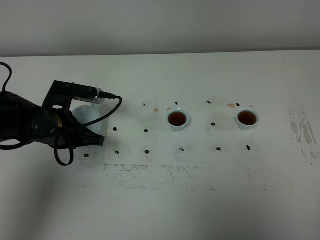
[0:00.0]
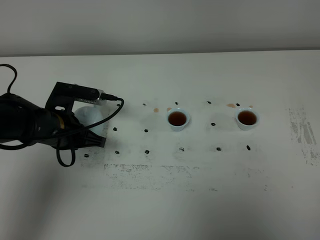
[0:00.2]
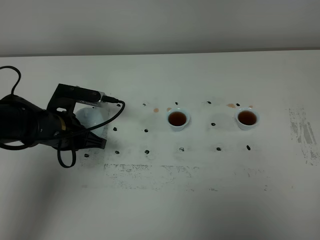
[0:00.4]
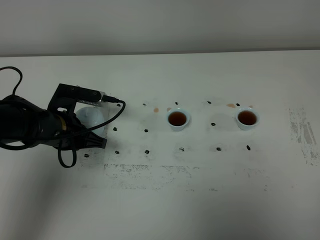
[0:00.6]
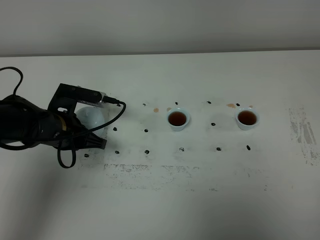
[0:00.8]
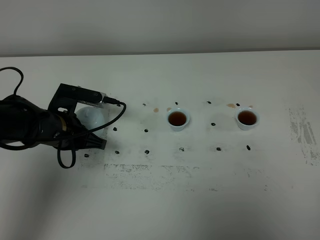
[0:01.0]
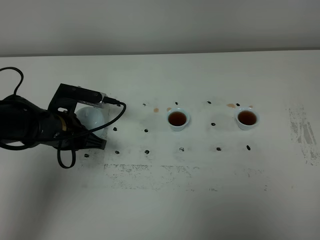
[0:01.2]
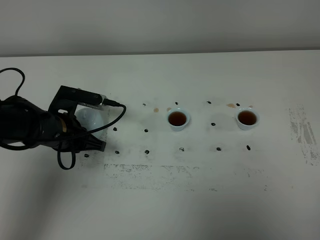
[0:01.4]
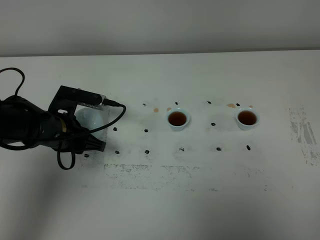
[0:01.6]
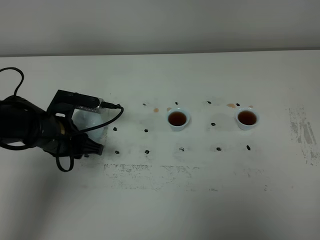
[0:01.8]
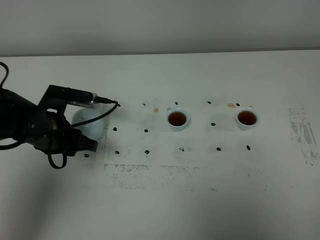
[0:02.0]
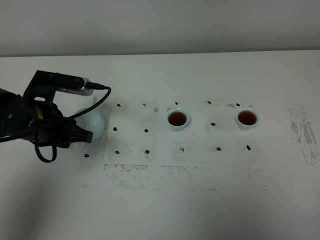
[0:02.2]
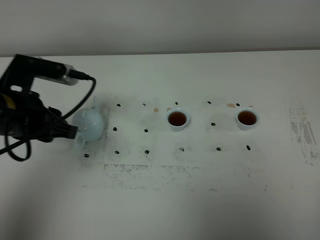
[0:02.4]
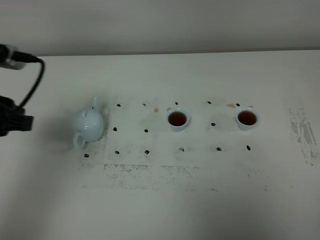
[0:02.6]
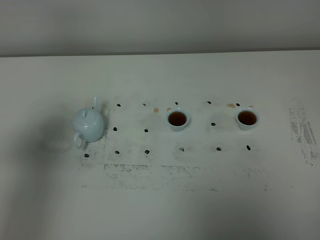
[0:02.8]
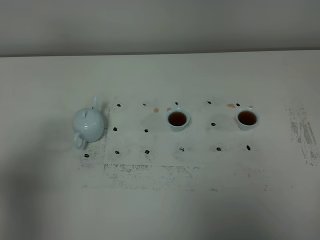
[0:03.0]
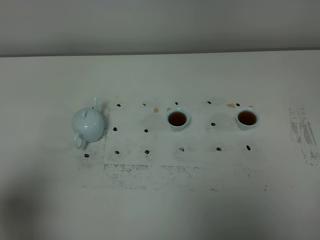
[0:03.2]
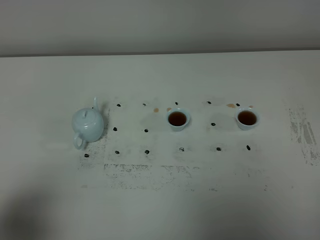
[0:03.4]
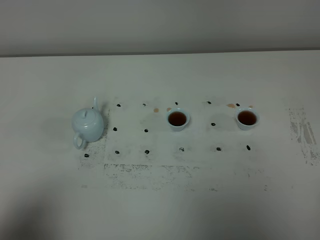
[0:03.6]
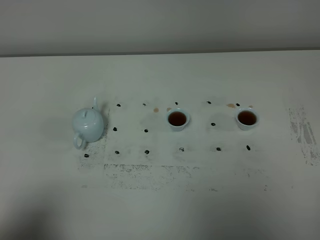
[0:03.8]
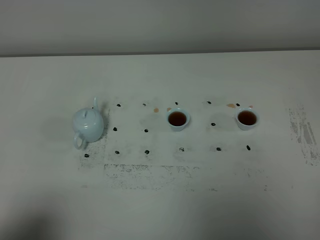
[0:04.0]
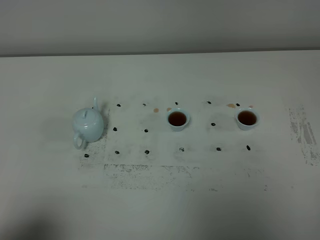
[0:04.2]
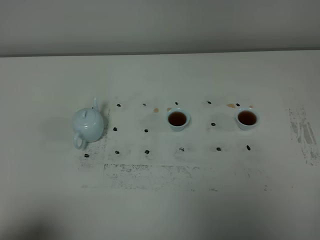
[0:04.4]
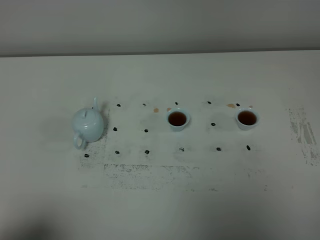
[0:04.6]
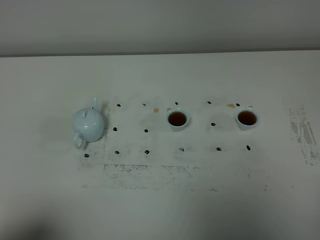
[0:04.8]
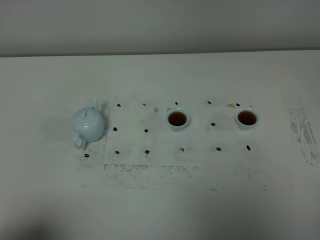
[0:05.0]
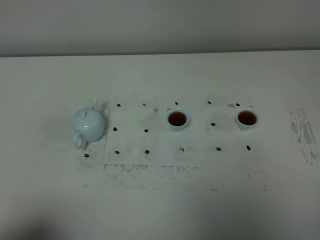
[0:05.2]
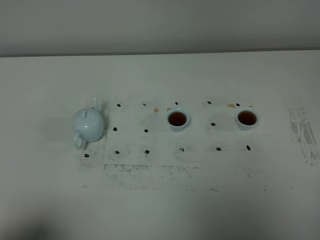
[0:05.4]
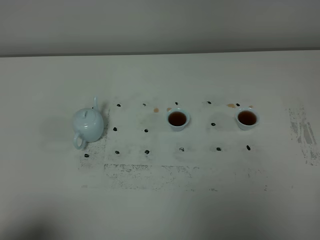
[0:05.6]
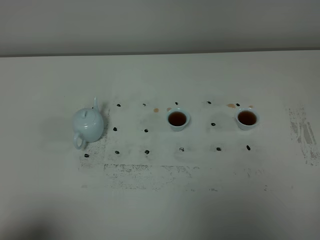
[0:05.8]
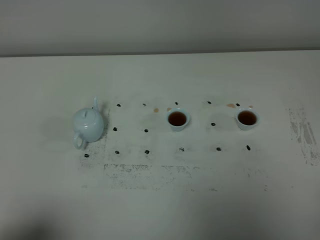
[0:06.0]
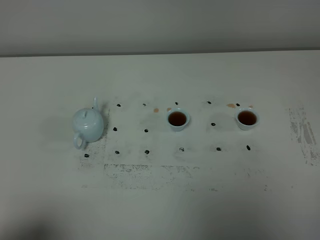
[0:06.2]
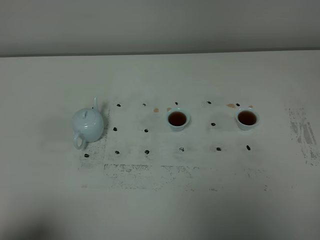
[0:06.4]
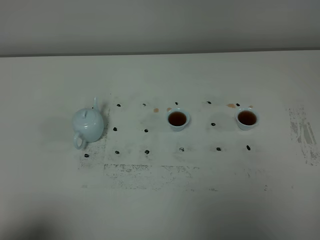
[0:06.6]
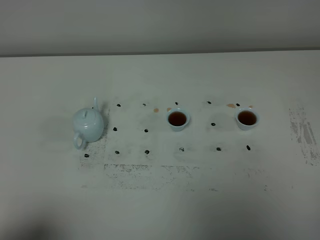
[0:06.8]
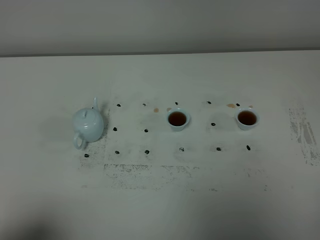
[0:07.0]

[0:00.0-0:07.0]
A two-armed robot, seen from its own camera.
Task of the whole recording: grasp the blue porcelain teapot and pour the tea into the two blue porcelain teacups one by one, put the blue porcelain teapot back in its original place.
0:00.0 to 0:01.4: The grippers make only small movements.
0:01.4 to 0:02.8: The left gripper heads upward, backward and to the left, covering some 30 cm, and opens up.
0:02.8 to 0:04.2: The left gripper moves backward and downward, roughly 20 cm.
0:04.2 to 0:07.0: Both grippers stay about where they are.

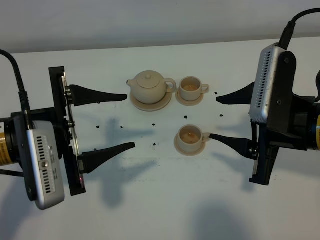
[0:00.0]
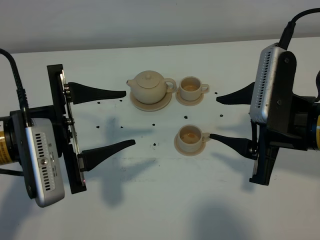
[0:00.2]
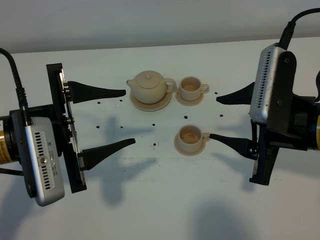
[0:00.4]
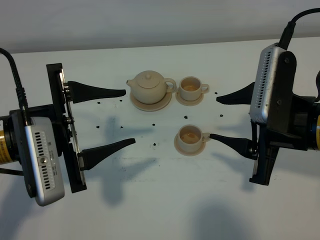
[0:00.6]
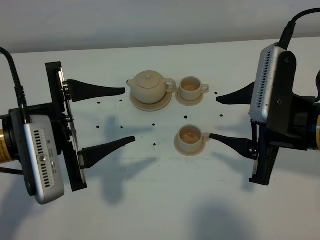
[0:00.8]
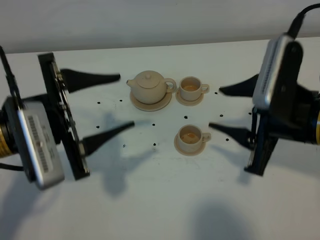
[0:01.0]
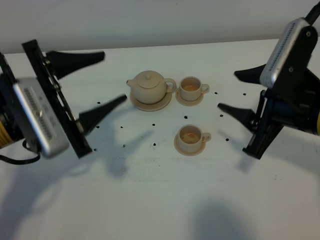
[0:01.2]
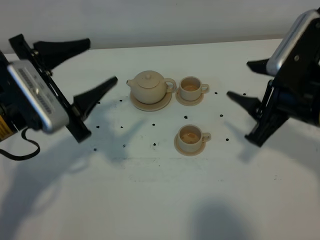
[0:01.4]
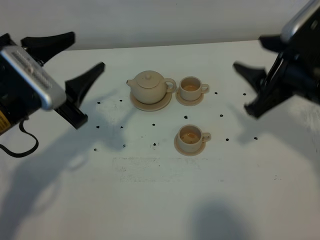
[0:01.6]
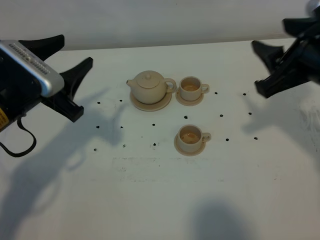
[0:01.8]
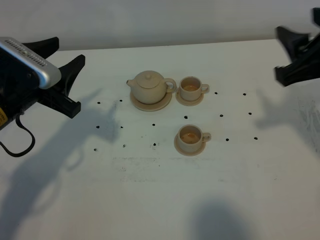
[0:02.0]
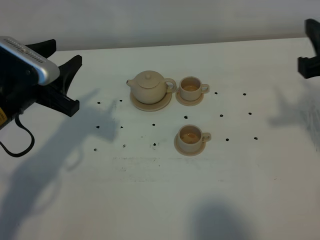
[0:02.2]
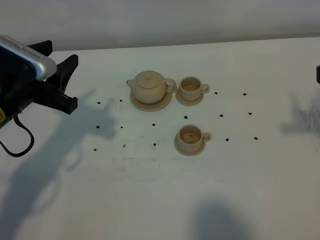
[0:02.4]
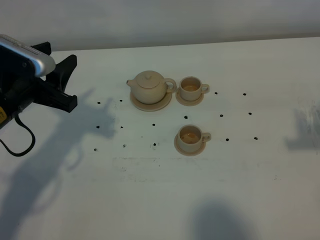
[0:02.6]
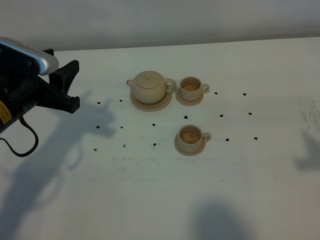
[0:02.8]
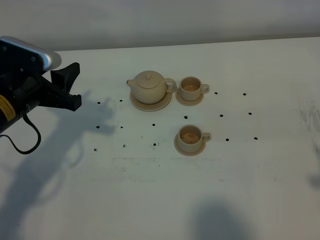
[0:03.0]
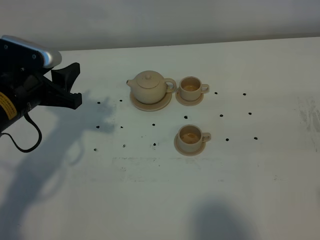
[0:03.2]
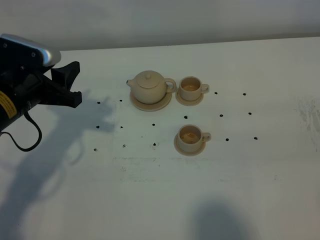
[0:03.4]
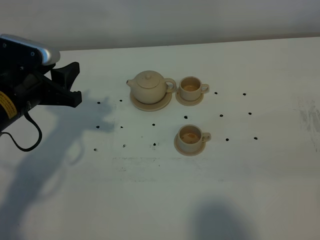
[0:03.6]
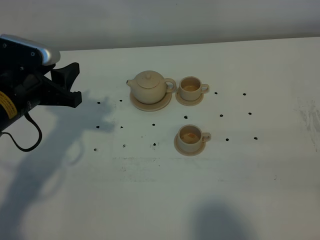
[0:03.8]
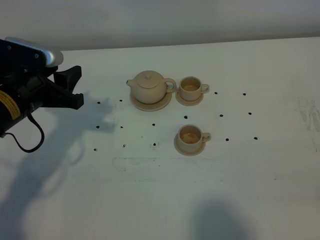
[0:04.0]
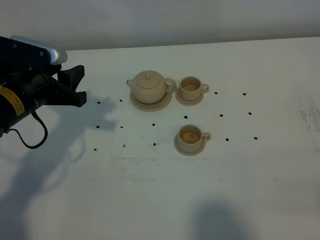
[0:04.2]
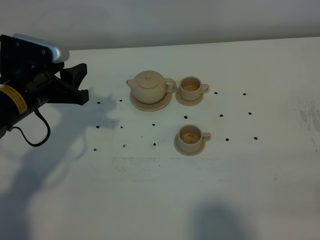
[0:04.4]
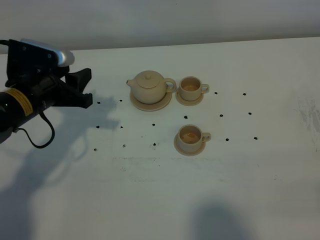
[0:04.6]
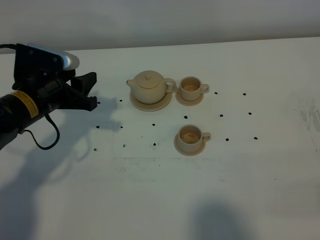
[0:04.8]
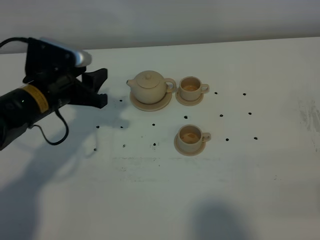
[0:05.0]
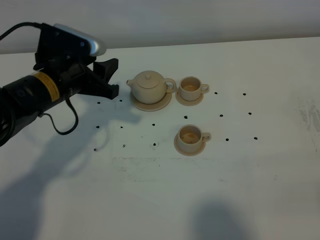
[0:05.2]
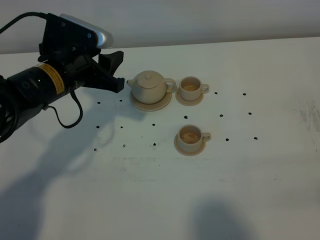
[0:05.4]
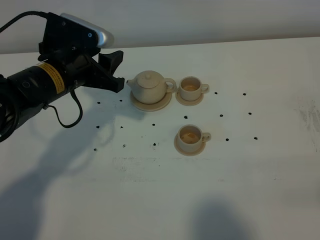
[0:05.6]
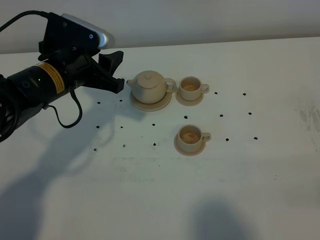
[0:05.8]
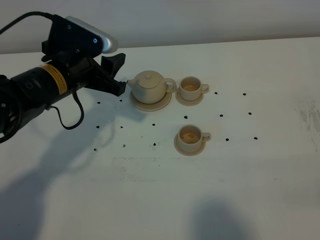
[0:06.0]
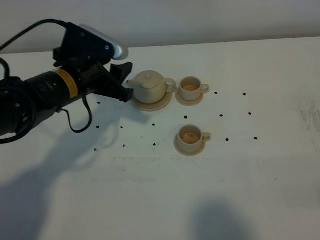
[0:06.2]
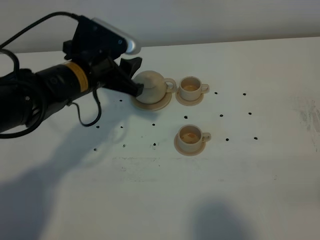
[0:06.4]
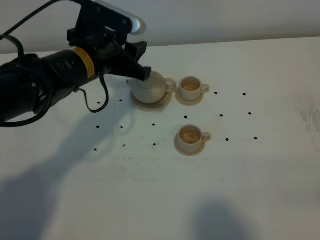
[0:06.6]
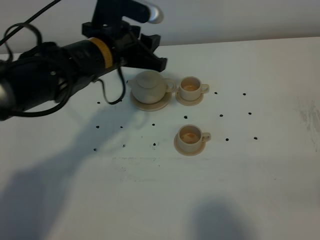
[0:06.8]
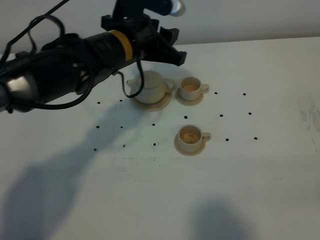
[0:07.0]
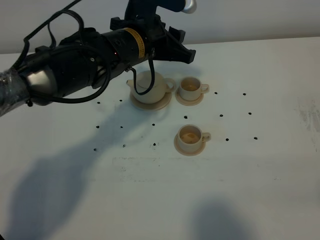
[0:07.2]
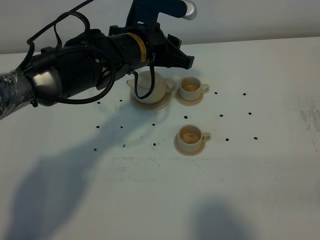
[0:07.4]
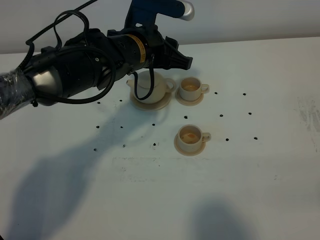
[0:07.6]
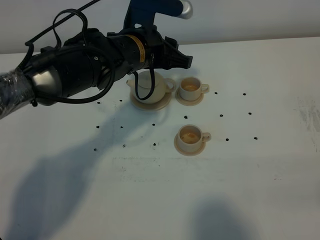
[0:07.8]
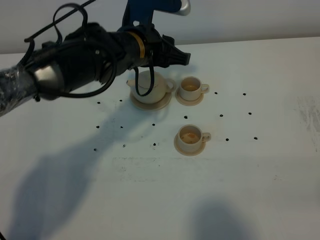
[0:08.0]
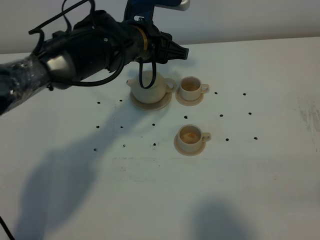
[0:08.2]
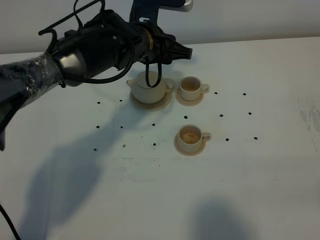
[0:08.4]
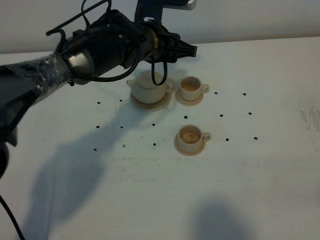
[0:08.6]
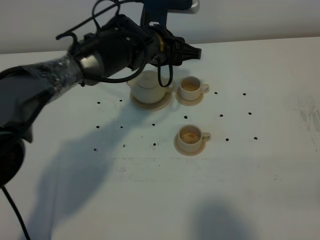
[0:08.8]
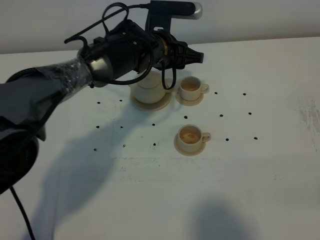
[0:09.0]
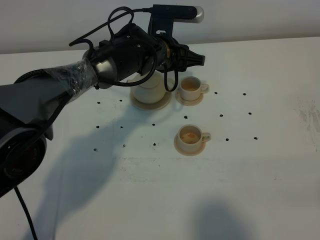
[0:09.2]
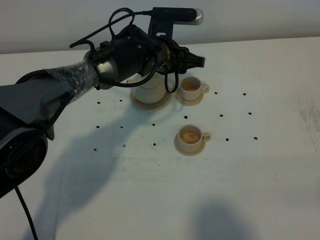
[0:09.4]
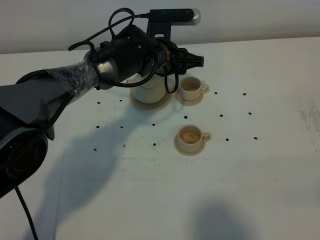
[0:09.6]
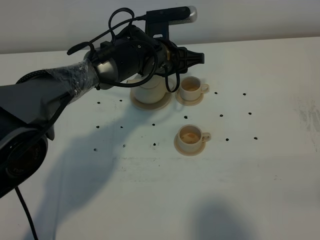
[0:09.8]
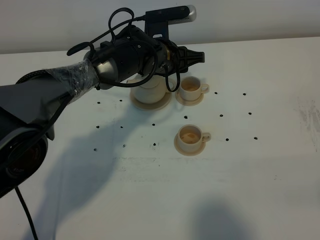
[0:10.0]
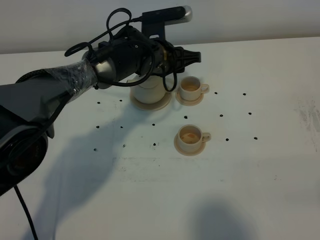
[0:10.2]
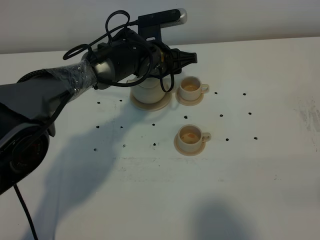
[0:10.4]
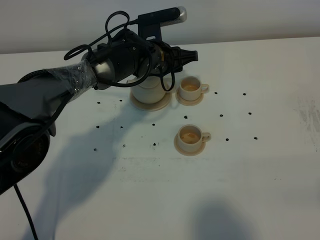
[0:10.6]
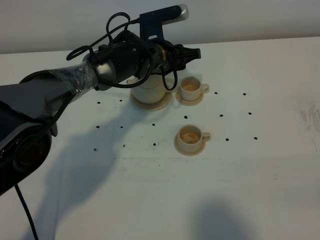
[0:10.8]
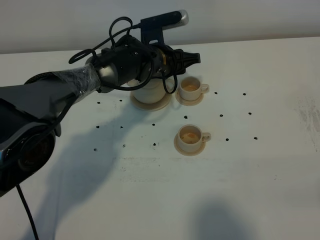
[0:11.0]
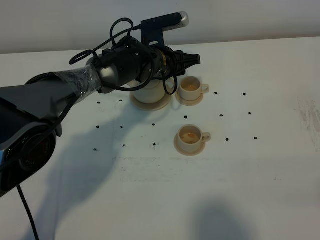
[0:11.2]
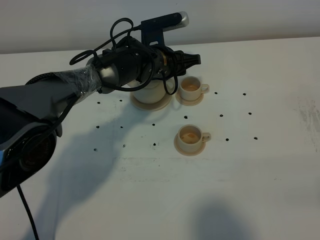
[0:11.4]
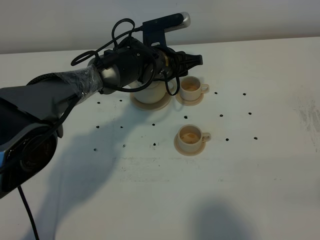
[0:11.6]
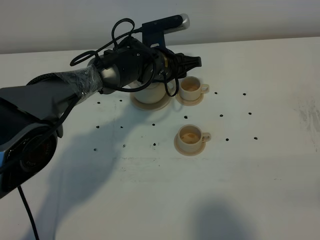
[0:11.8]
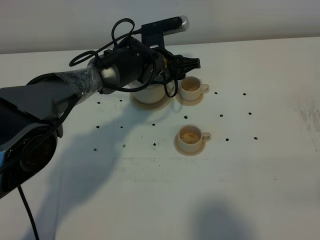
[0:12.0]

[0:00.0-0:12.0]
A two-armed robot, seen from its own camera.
Task of the whole recording: grasp the brown teapot and pour the tea into the two brown teacups one by one, put the brown teapot back in its original place.
0:00.0 to 0:01.6: The left gripper moves roughly 5 cm. The right gripper shifts by some 5 cm.
0:01.6 to 0:03.0: The left gripper moves about 5 cm, while the right gripper heads backward and to the right, covering approximately 15 cm.
0:04.4 to 0:06.0: The left gripper is displaced to the right by some 5 cm.
0:06.0 to 0:07.6: The left gripper travels to the right by approximately 10 cm.
0:07.6 to 0:09.0: The left gripper heads forward and downward, covering about 10 cm.
0:09.0 to 0:12.0: There are only small adjustments of the grippers.

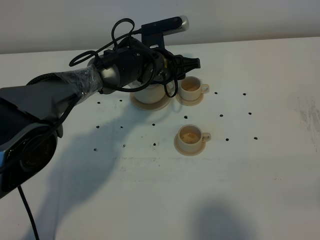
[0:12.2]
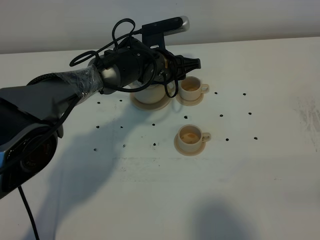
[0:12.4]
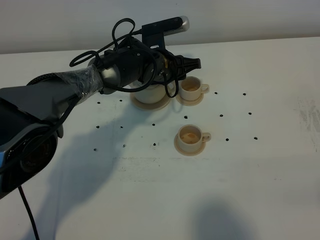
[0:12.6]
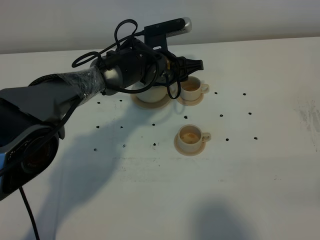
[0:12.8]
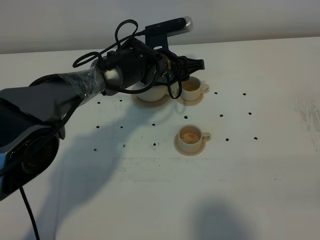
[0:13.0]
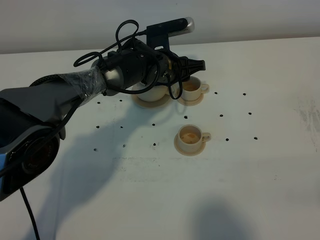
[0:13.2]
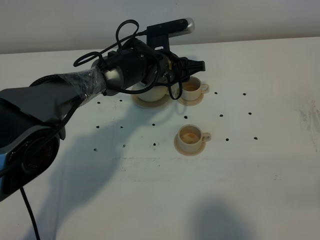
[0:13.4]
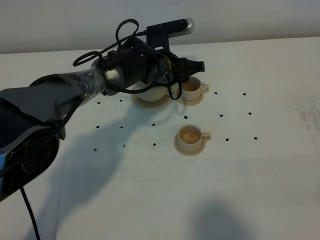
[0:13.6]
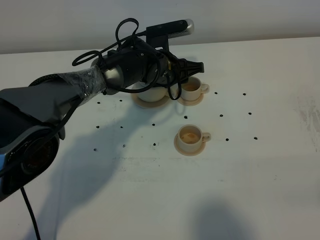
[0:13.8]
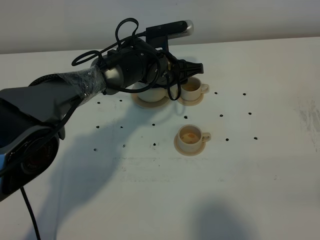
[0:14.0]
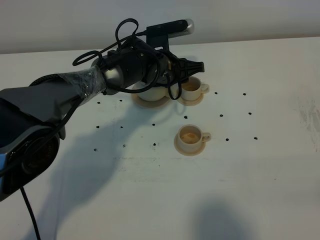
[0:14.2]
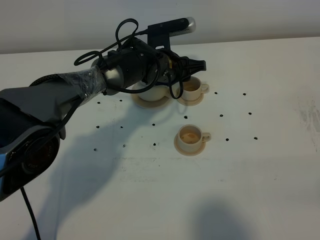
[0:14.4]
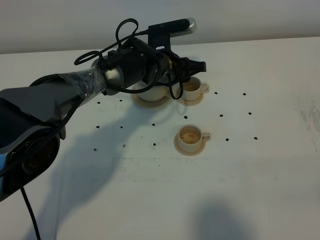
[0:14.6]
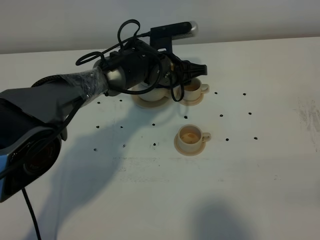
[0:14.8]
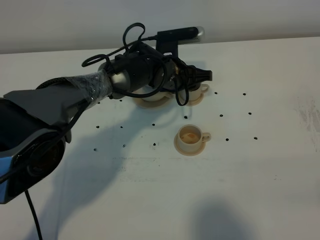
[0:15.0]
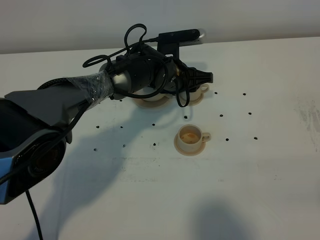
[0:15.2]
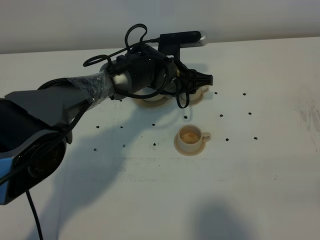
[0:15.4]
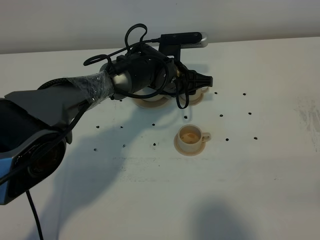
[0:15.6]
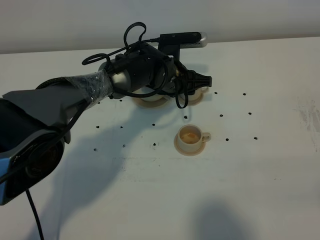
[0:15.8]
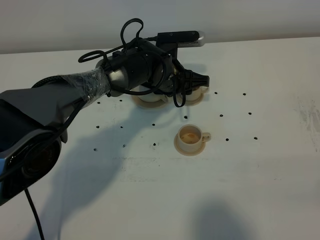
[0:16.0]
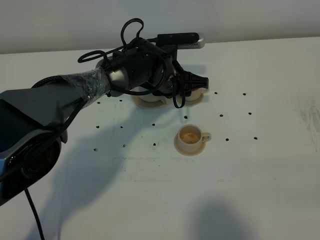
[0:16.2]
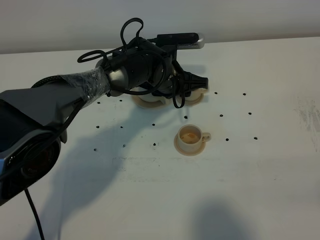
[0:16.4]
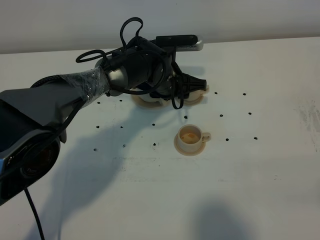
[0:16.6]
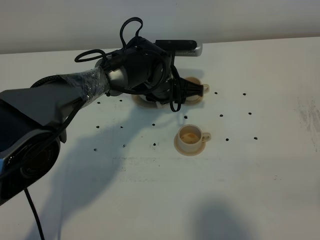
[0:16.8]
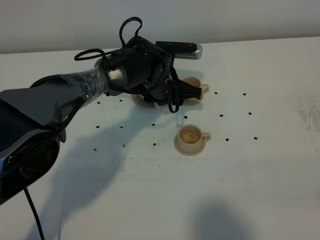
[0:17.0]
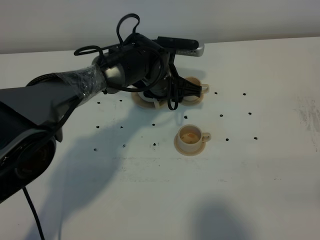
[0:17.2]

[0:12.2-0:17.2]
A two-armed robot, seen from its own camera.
Task of the whole recording: grasp the brown teapot and pour the tea into the two brown teacups one by one, put the brown teapot back in its original place.
0:12.2 to 0:13.8: Both grippers stay about where they are.
0:13.8 to 0:17.2: There are only small adjustments of the grippers.
